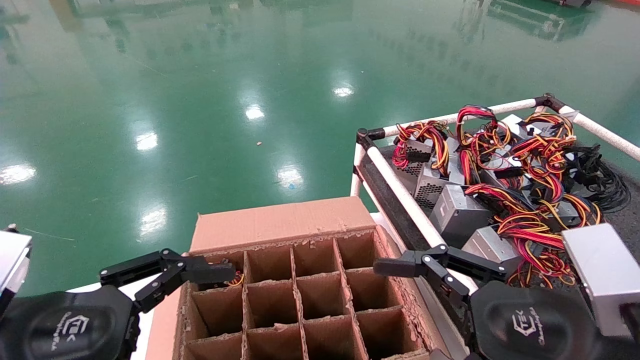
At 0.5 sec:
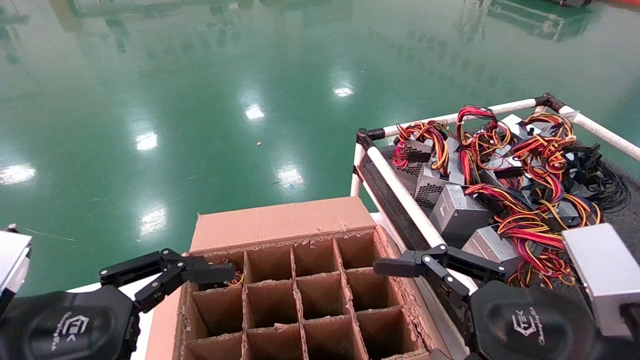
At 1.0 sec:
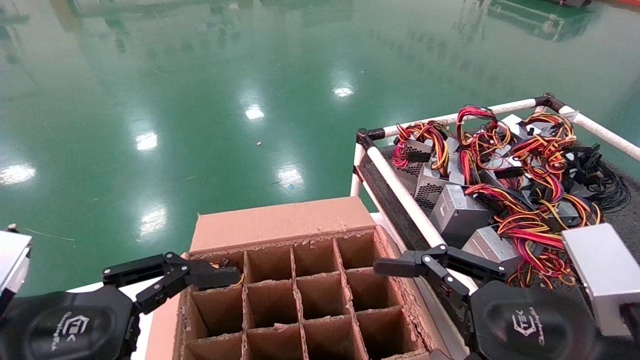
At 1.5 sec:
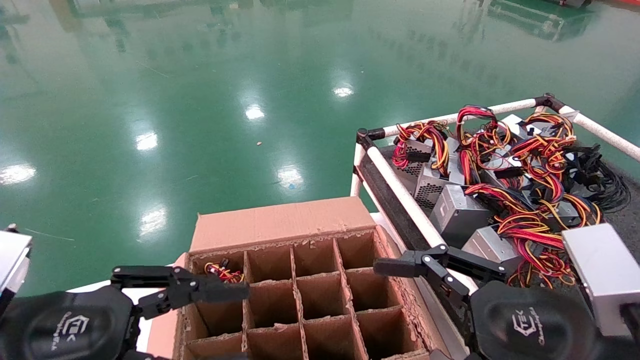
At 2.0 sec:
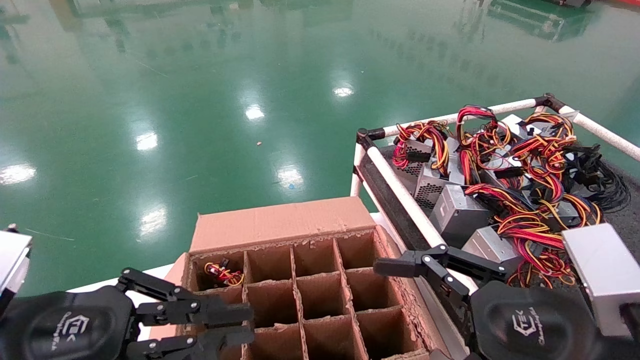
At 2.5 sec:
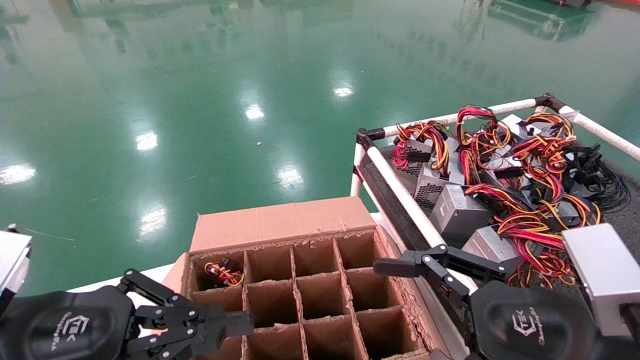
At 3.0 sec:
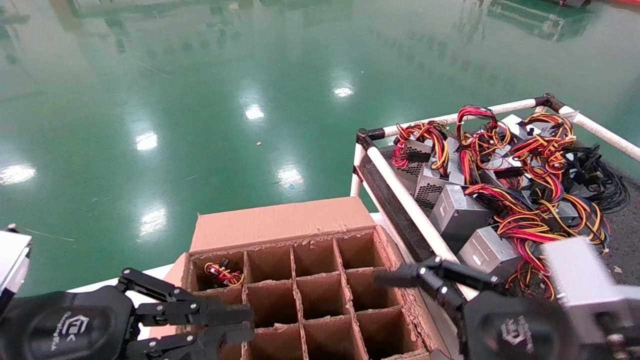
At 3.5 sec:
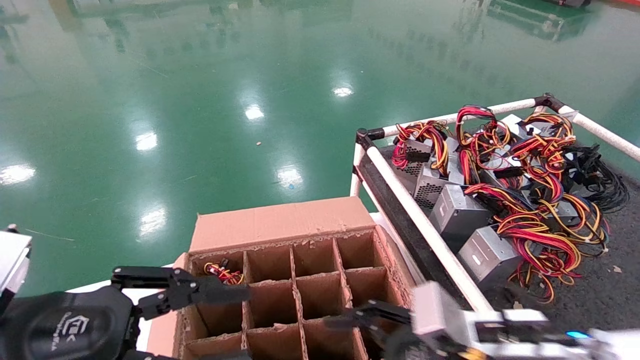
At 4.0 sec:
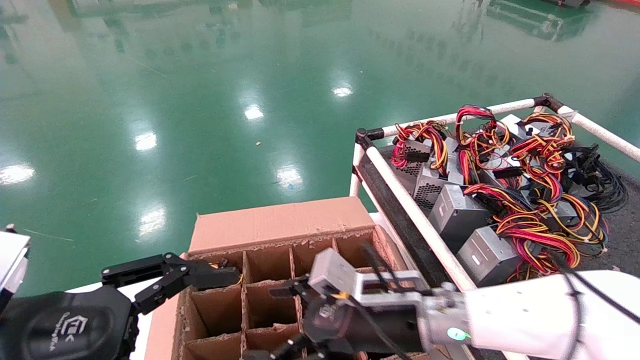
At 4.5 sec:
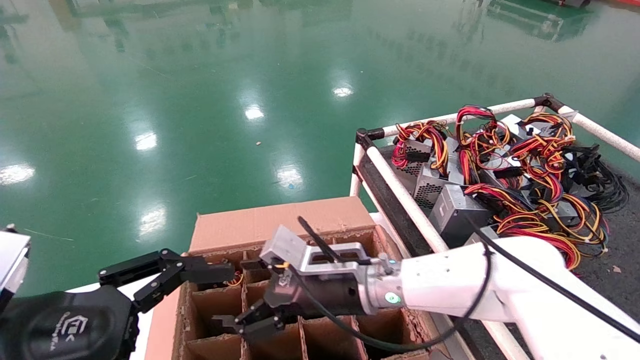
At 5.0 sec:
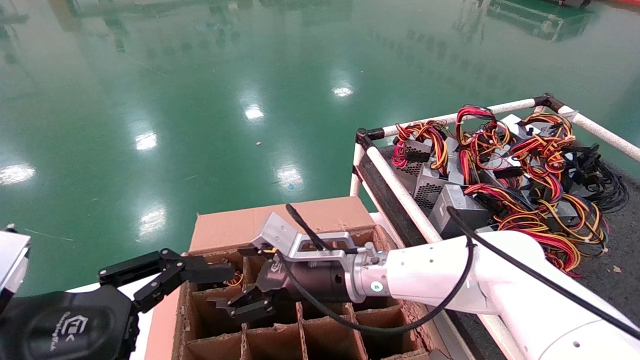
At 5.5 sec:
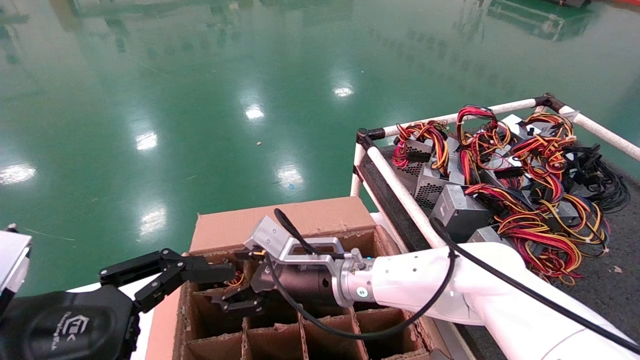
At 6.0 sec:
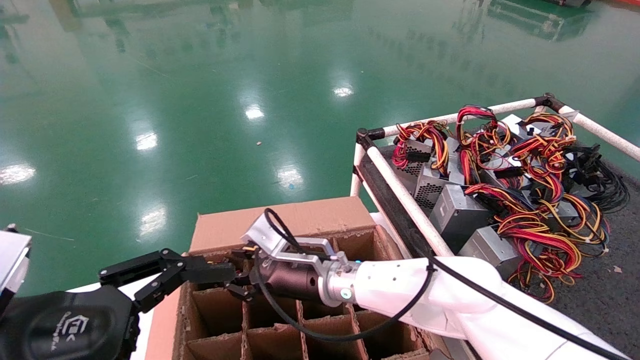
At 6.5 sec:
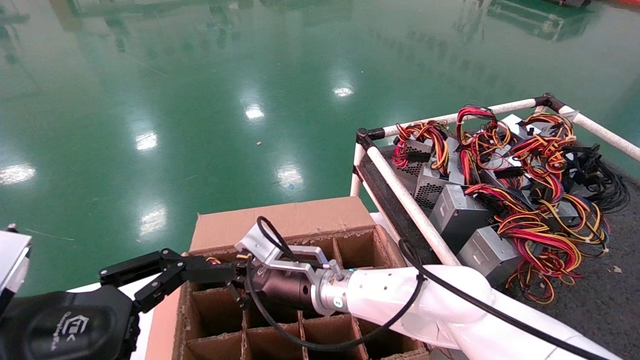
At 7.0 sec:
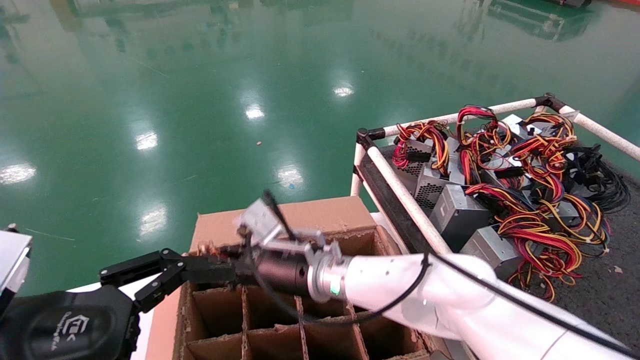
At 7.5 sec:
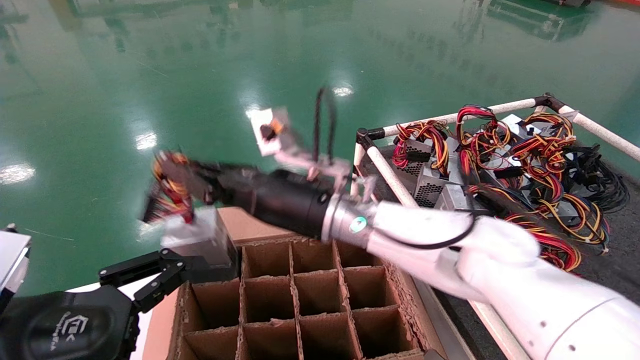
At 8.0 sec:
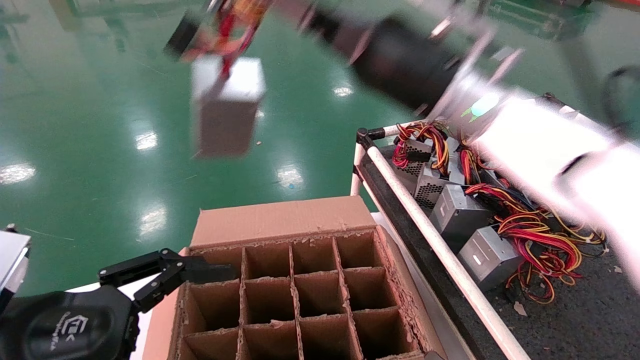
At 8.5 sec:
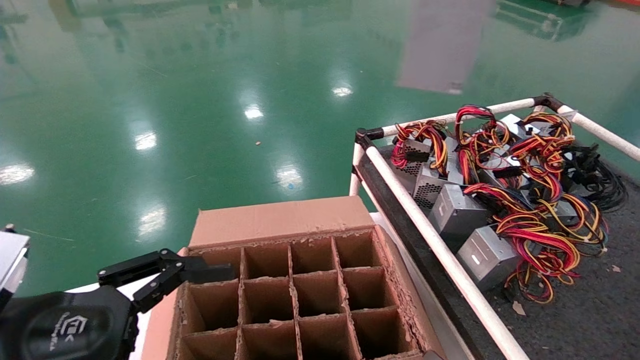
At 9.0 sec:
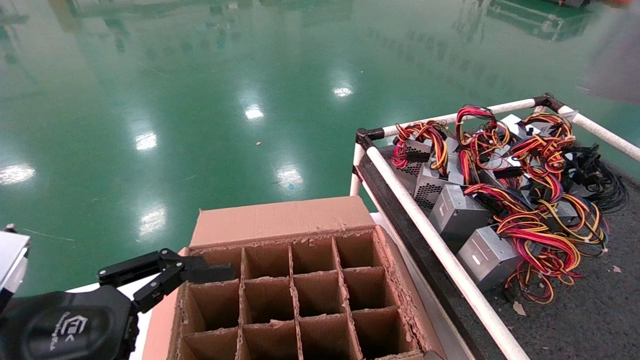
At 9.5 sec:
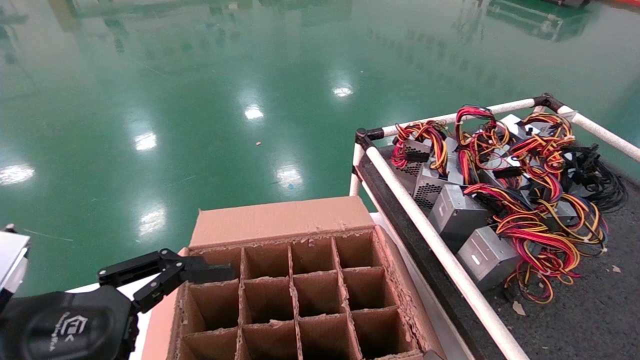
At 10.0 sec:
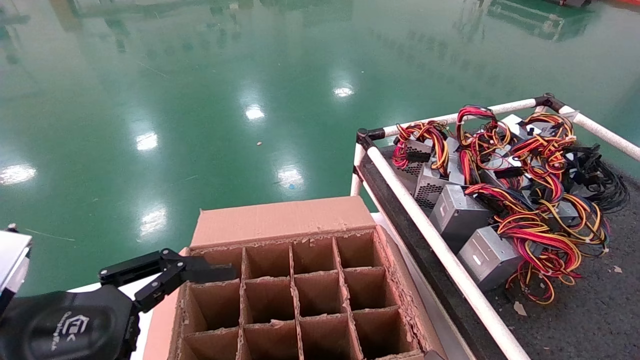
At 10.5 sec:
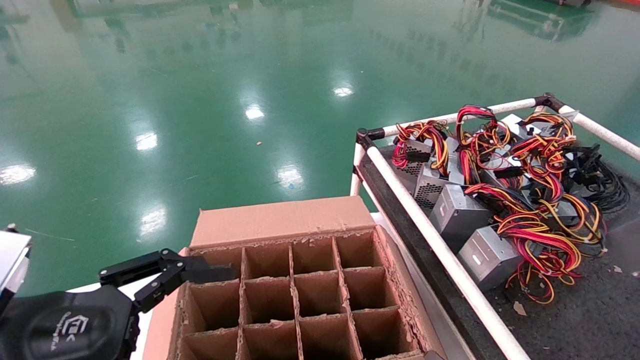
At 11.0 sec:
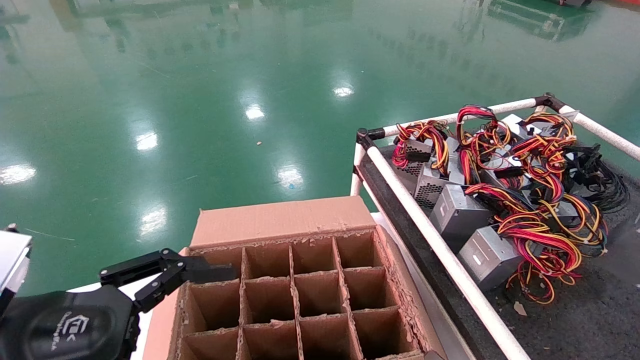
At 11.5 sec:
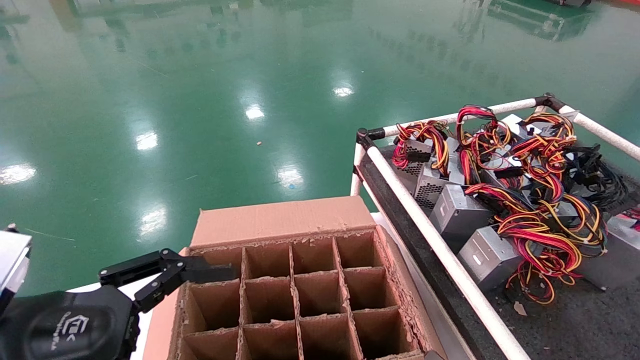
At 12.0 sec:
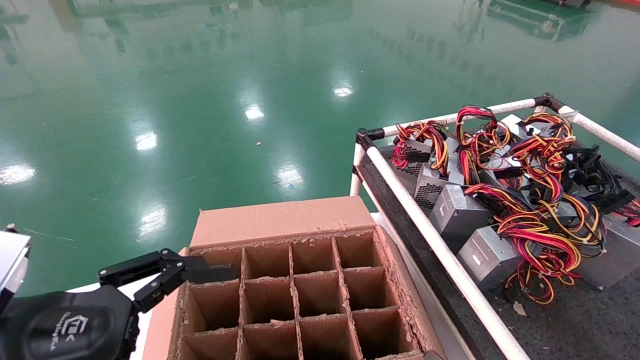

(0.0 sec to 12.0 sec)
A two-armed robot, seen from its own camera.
Step, 3.5 sec - 6.5 sec: Grab and lift the power supply from the large box.
0.0 sec - 2.0 sec: The left gripper closes its fingers.
2.0 sec - 4.0 sec: The right gripper heads forward, to the left and downward, covering roughly 20 cm, while the left gripper opens.
4.0 sec - 6.0 sec: The right gripper travels to the left and forward by approximately 15 cm, and closes.
6.0 sec - 8.0 sec: The right gripper shifts some 30 cm upward and to the right, and closes up.
8.0 sec - 10.0 sec: The right gripper heads to the right and backward, covering some 50 cm.
10.0 sec - 12.0 sec: The right gripper is displaced forward and downward by approximately 20 cm.

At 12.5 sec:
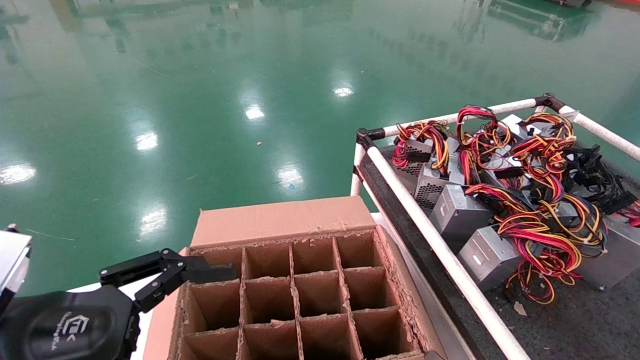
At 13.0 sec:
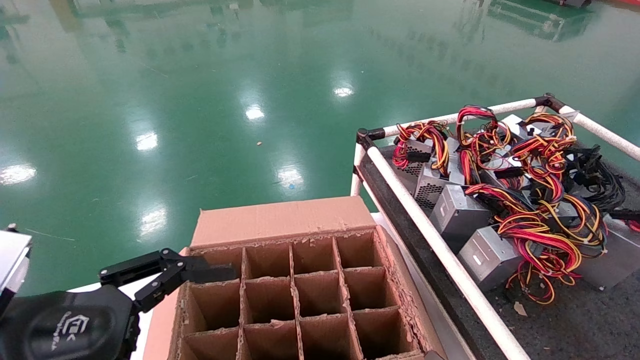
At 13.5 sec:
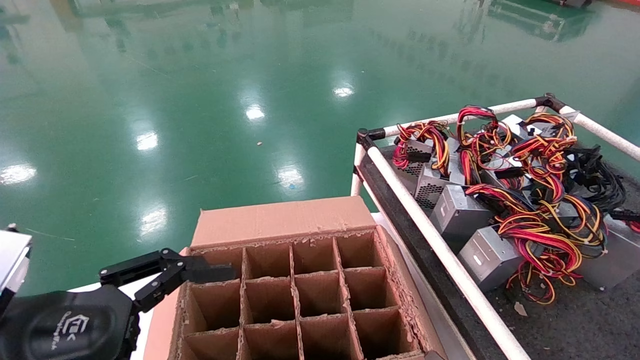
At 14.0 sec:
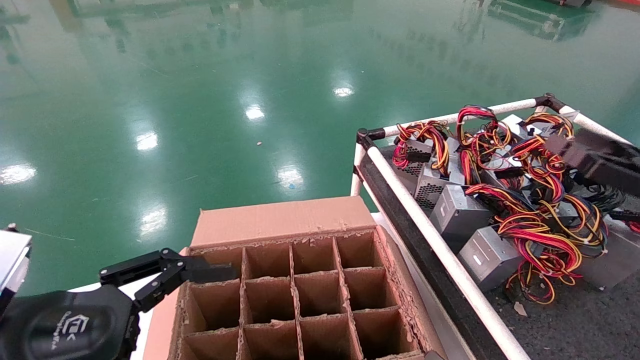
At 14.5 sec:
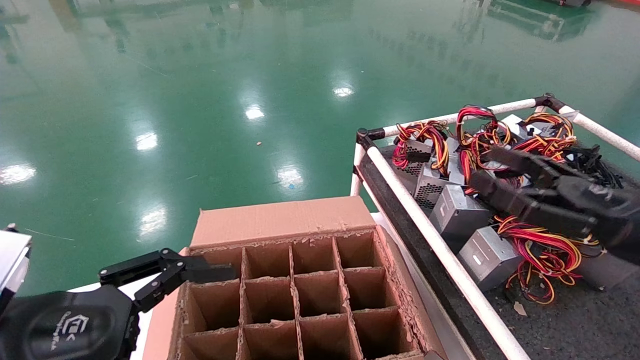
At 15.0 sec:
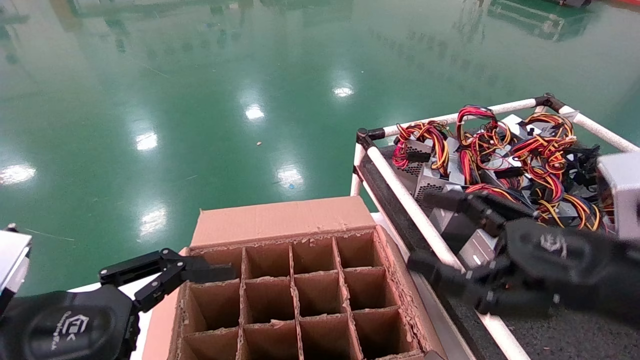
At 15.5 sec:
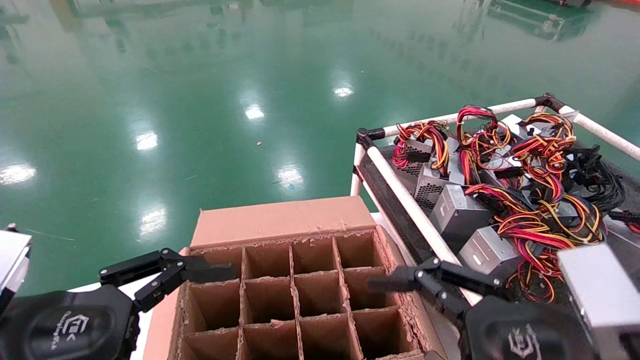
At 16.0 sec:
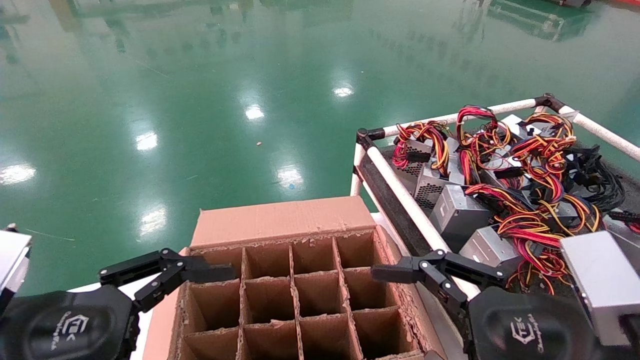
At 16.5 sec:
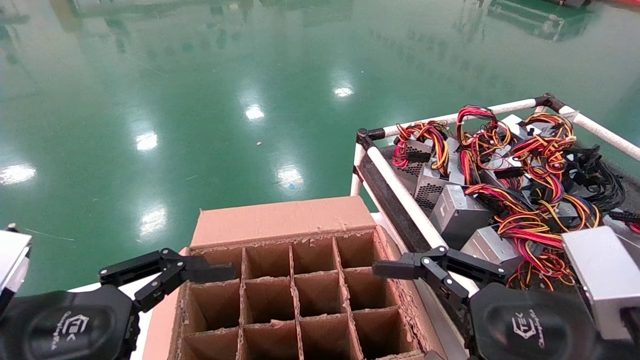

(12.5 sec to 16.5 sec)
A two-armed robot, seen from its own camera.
12.5 sec - 14.5 sec: The right gripper heads to the left, covering some 25 cm, and opens up.
14.5 sec - 16.5 sec: The right gripper travels to the left and backward by about 15 cm.
